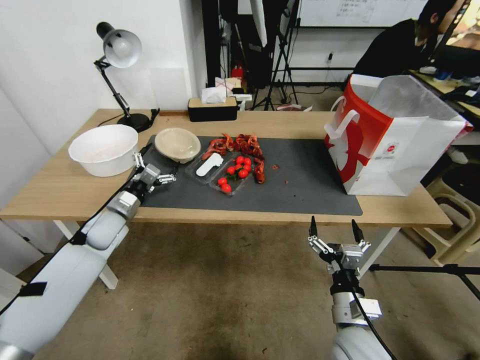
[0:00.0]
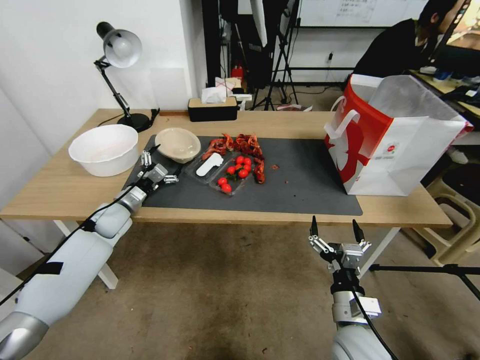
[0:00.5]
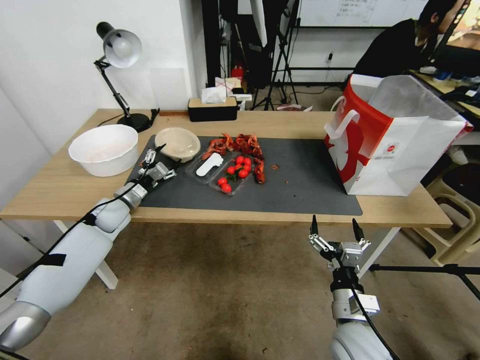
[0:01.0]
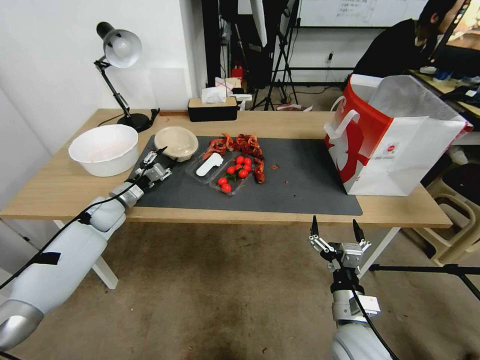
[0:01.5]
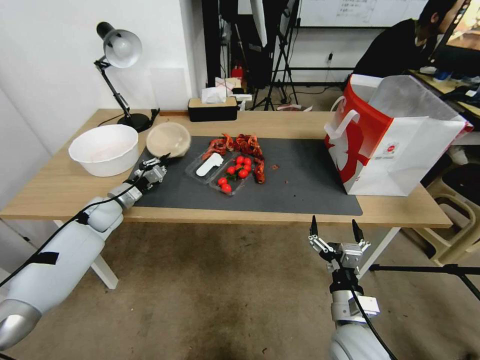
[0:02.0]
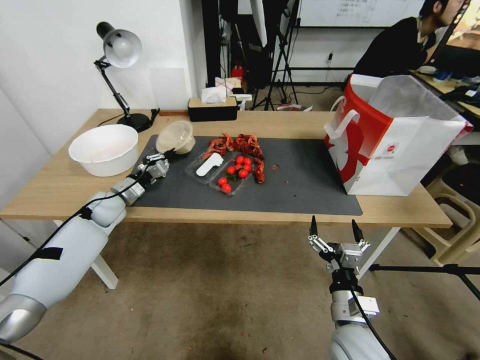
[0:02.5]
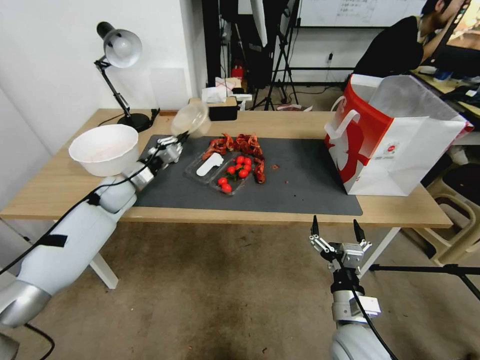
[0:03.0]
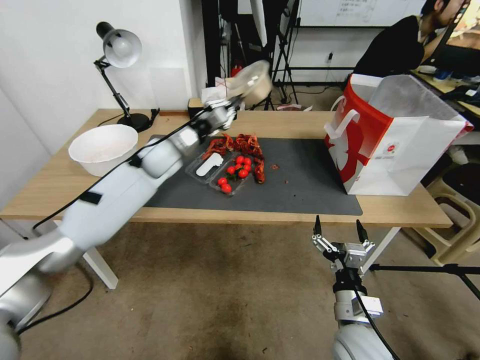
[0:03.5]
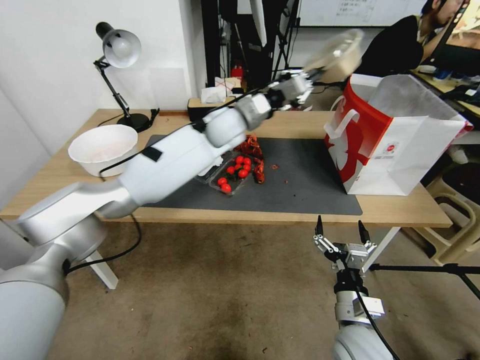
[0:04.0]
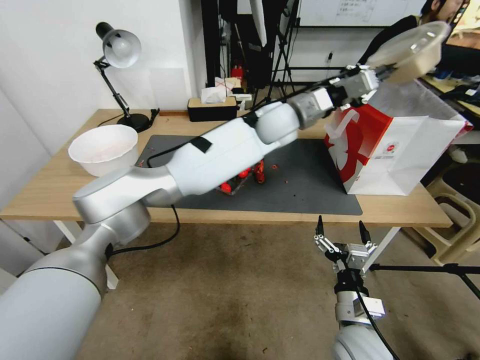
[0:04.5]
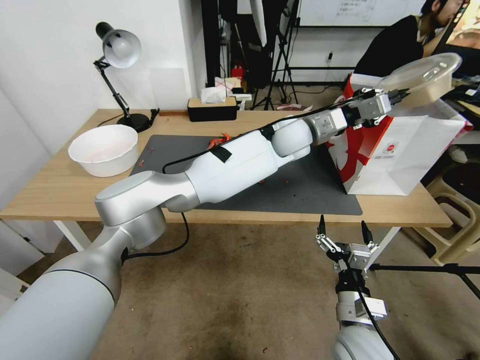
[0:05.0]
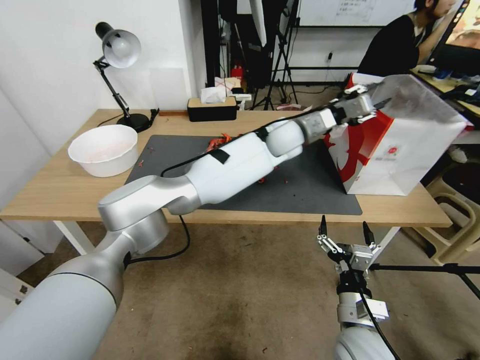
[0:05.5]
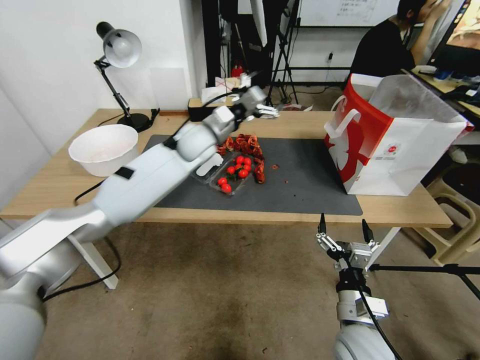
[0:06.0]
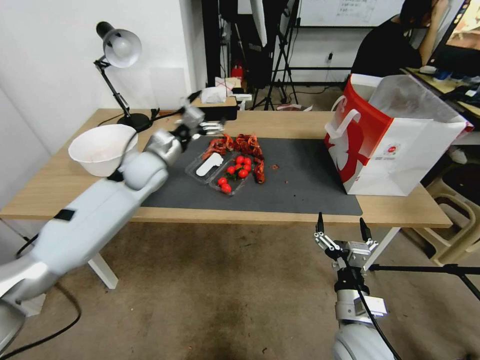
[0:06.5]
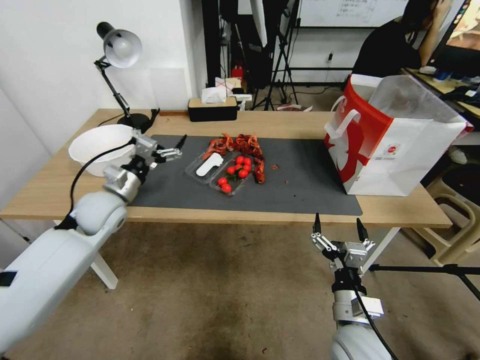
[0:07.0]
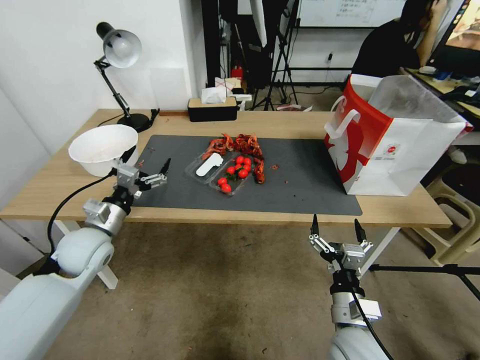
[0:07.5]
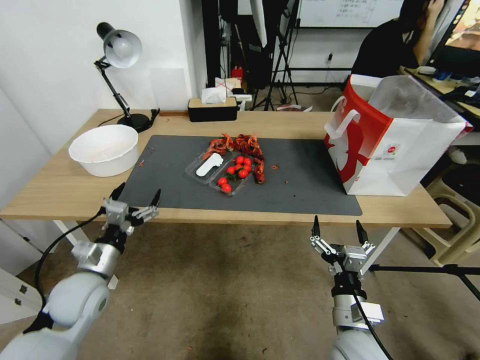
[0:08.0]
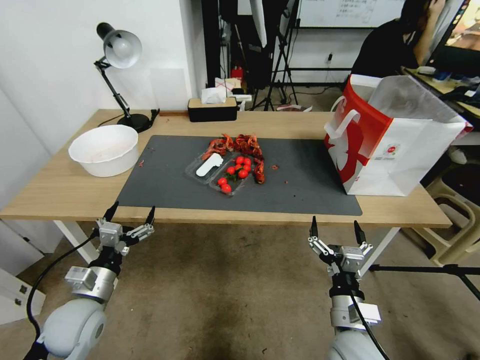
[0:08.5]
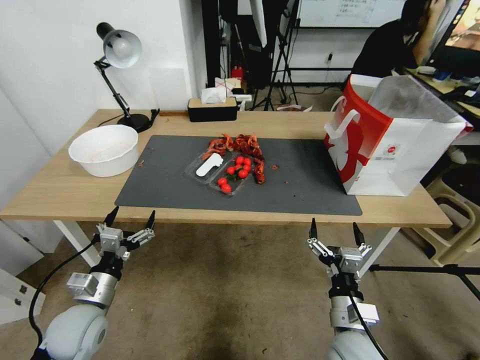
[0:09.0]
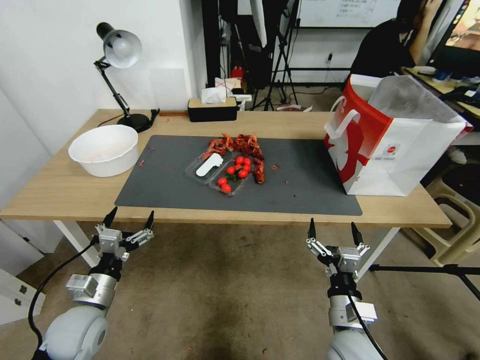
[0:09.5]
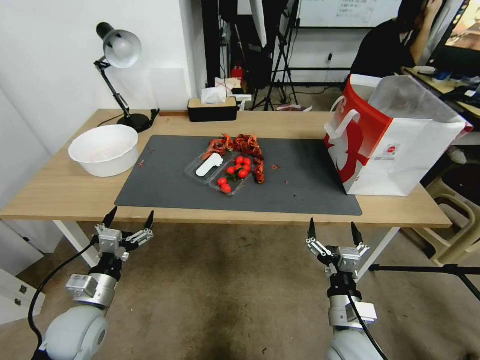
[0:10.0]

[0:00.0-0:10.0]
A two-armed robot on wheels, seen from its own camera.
0:00.0 to 0:02.0: The left gripper moves forward, some 5 cm, and closes.
0:02.0 to 0:04.0: The left gripper is displaced to the right and upward by about 40 cm.
0:04.0 to 0:06.0: The left gripper moves some 15 cm to the right and comes back, and opens up.
0:06.0 to 0:08.0: The left gripper heads to the left, backward and downward, covering some 40 cm.
0:08.0 to 0:10.0: The left gripper heads backward and downward, covering some 10 cm.

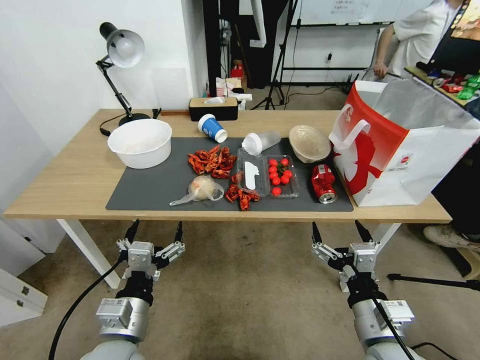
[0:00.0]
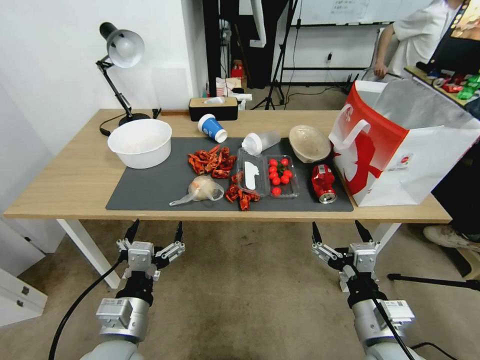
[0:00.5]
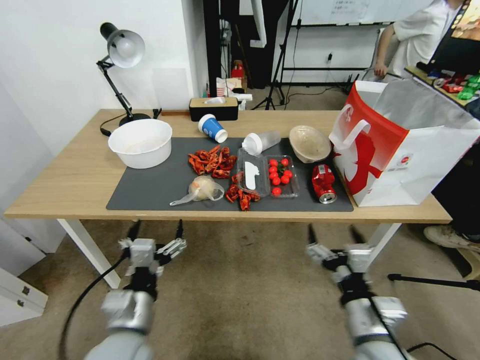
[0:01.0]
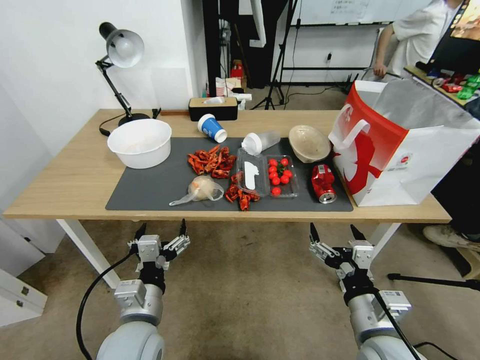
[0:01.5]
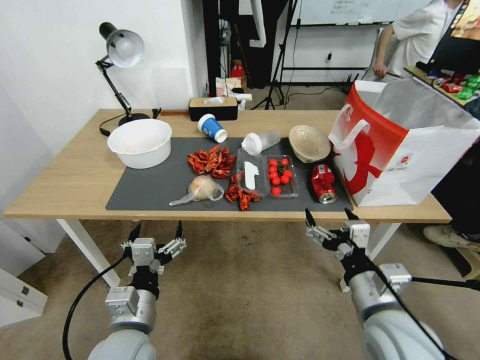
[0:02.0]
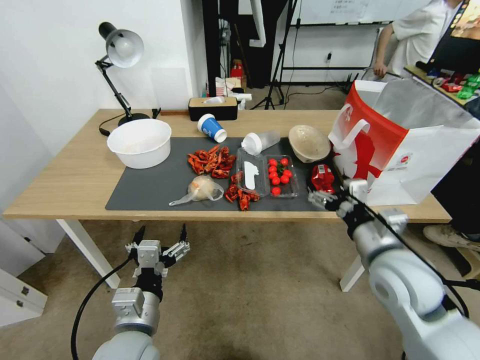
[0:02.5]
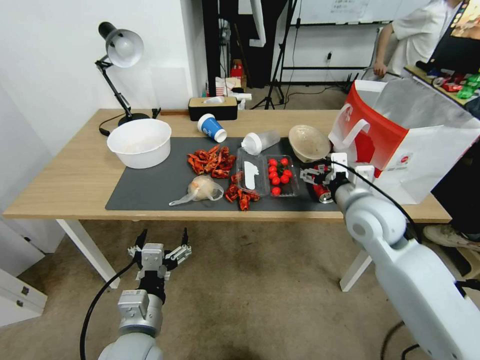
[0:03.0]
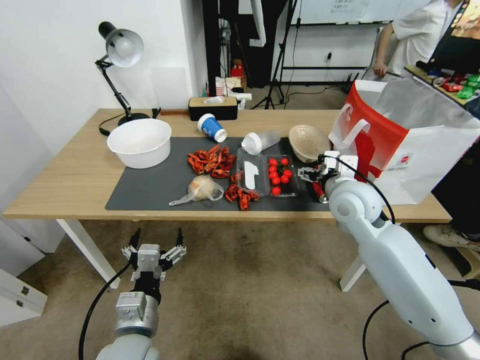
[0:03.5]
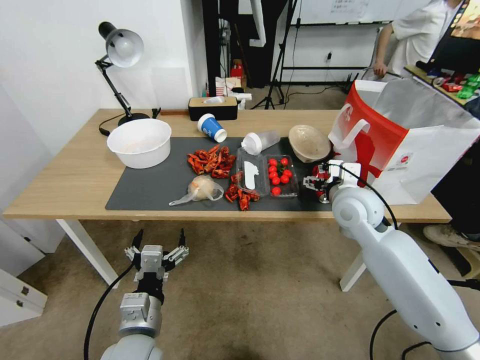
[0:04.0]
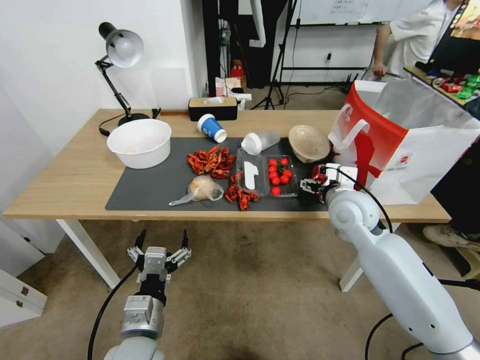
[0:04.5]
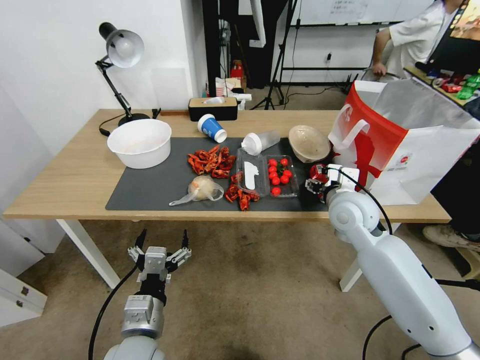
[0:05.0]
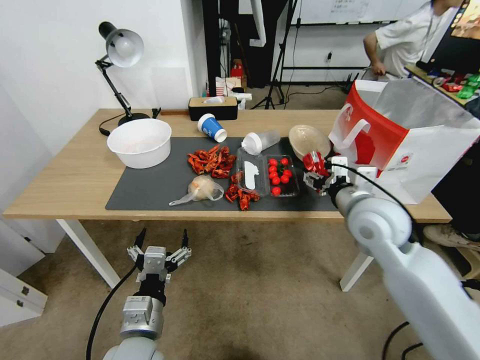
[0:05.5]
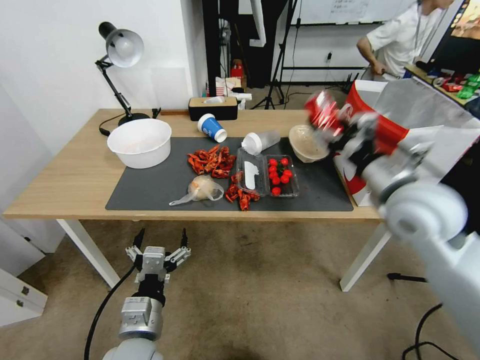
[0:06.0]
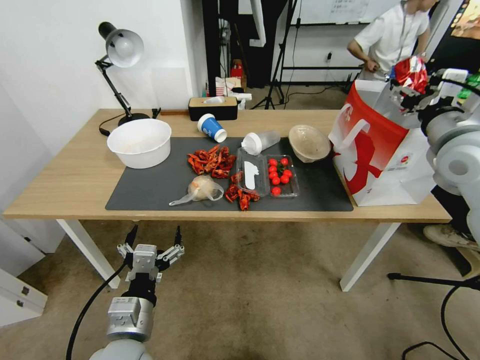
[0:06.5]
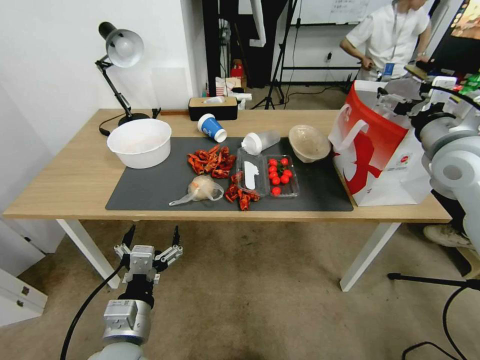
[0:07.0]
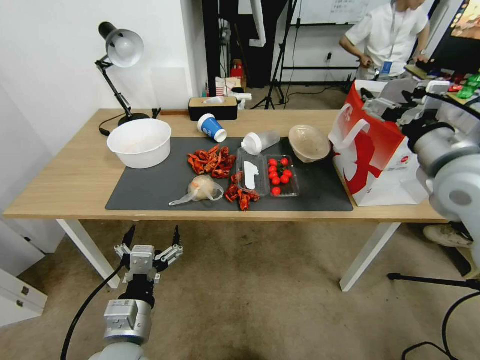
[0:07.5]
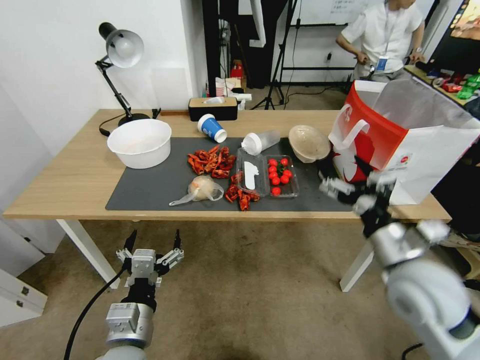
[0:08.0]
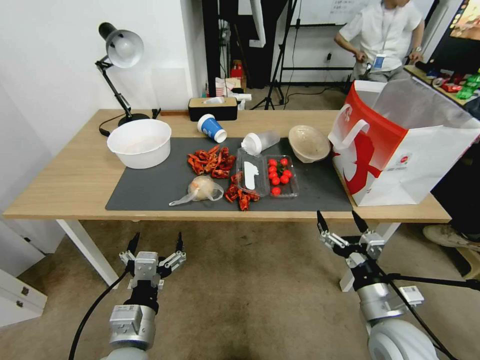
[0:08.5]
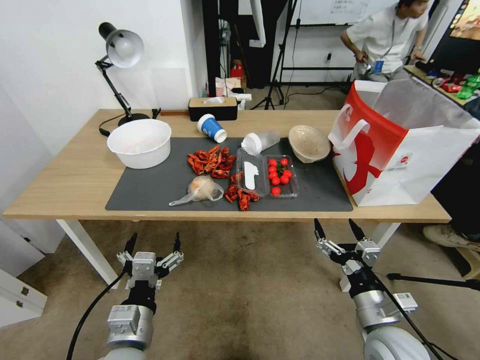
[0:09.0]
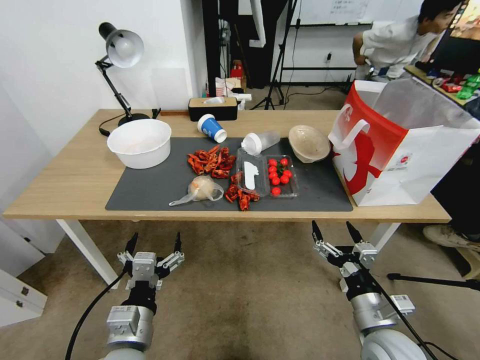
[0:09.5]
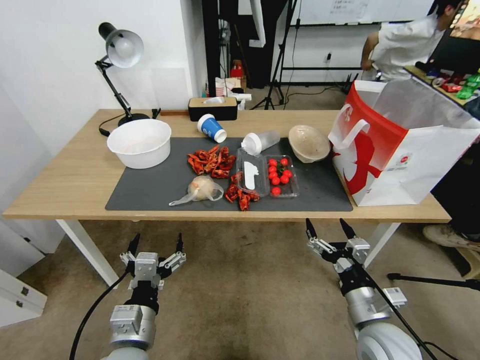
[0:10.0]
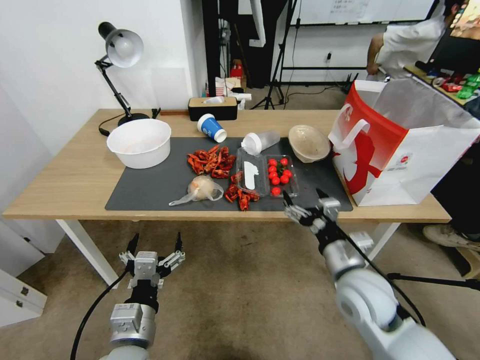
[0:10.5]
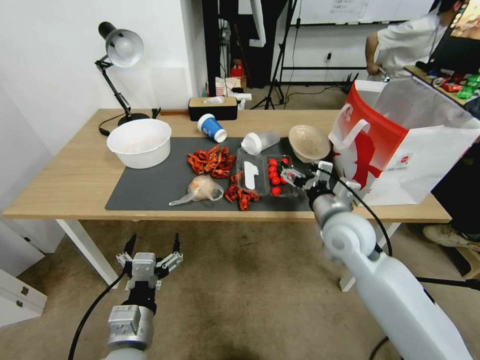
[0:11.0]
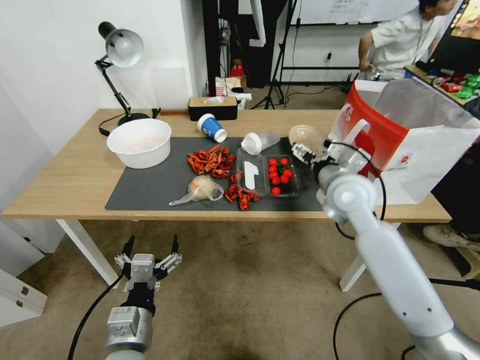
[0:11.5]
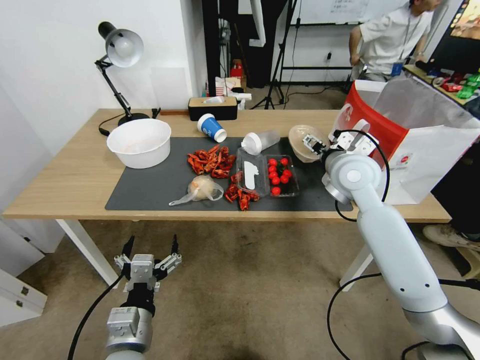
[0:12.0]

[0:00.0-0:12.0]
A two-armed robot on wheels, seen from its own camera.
0:02.0 to 0:04.0: The right gripper travels forward by about 25 cm.
0:04.0 to 0:06.0: The right gripper moves upward and backward, roughly 15 cm, and closes its fingers.
0:06.0 to 0:08.0: The right gripper travels downward and backward by some 15 cm, and opens its fingers.
0:08.0 to 0:10.0: The right gripper moves downward and backward, about 15 cm.
0:10.0 to 0:12.0: The right gripper moves forward and upward, approximately 35 cm.

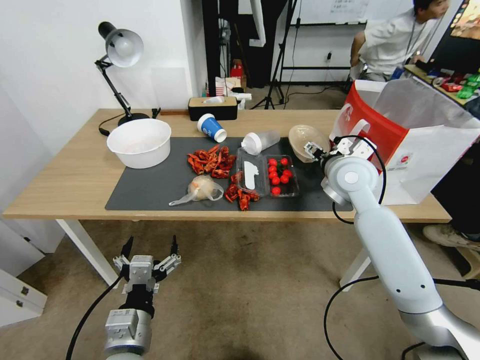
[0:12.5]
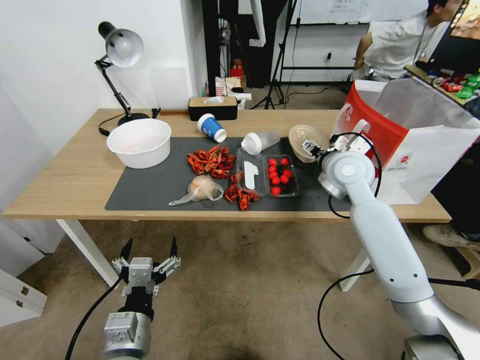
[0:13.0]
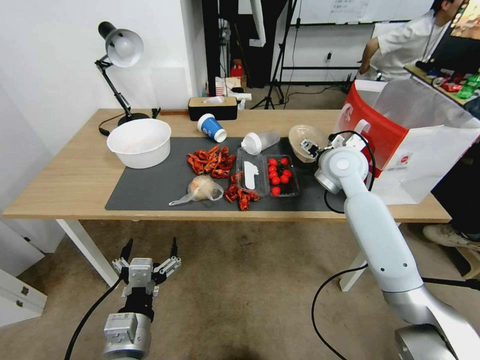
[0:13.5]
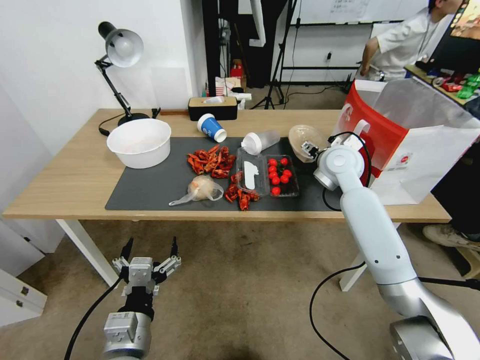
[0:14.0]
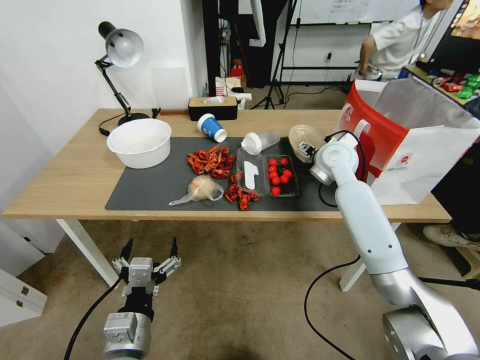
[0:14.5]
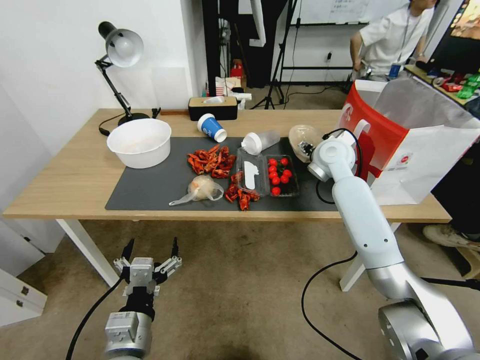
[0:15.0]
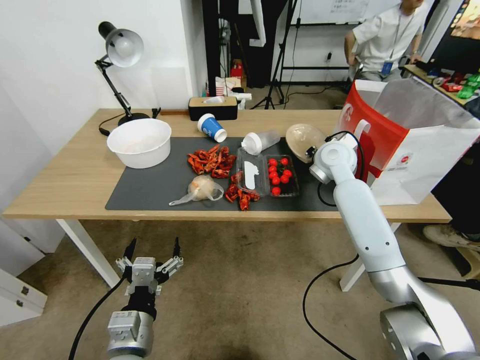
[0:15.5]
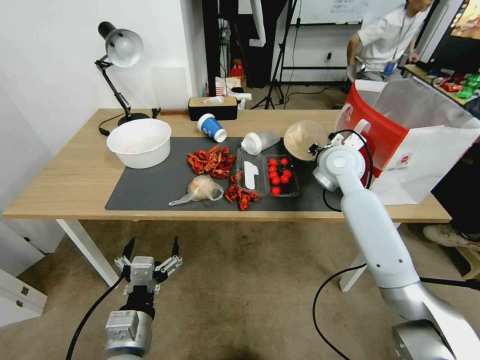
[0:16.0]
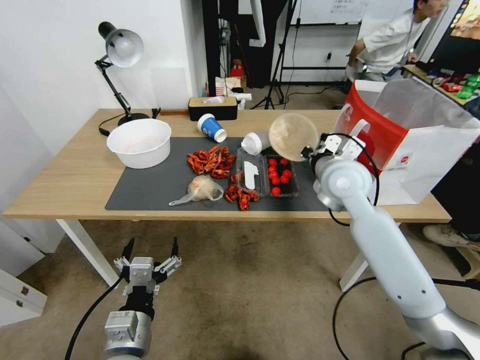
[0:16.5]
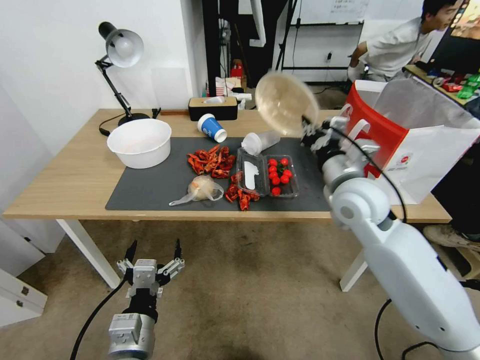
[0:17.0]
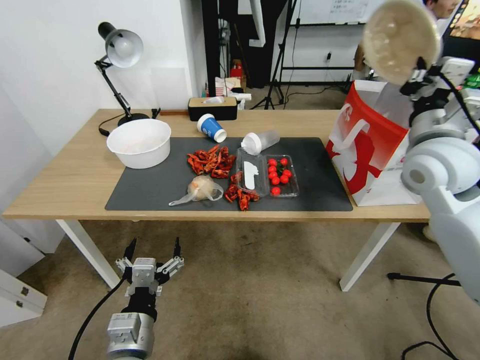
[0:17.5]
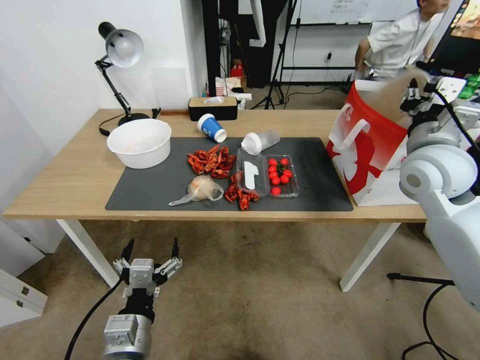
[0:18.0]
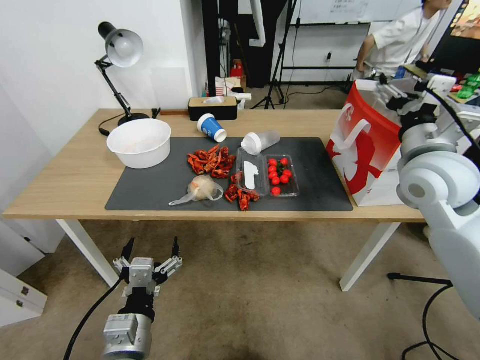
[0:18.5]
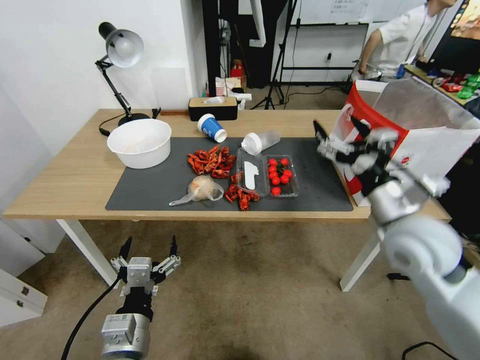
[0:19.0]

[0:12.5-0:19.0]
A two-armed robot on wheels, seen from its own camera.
0:12.5 to 0:14.5: The right gripper goes about 10 cm forward.
0:14.5 to 0:17.0: The right gripper heads backward, covering roughly 15 cm, and closes.
0:17.0 to 0:19.0: The right gripper shifts approximately 10 cm backward and to the right, and opens up.
